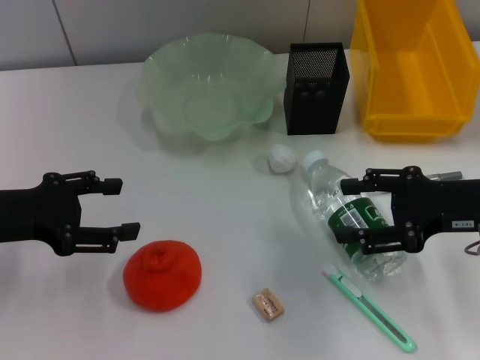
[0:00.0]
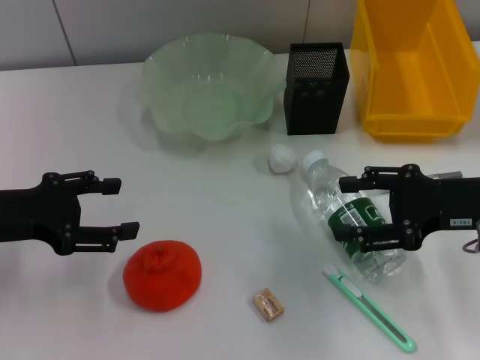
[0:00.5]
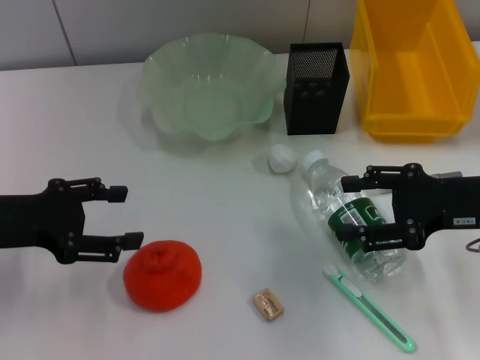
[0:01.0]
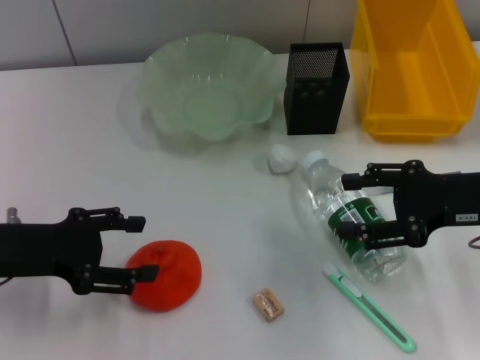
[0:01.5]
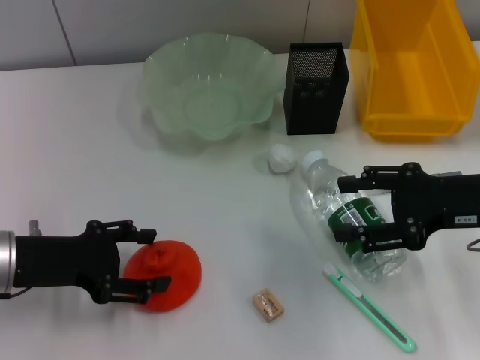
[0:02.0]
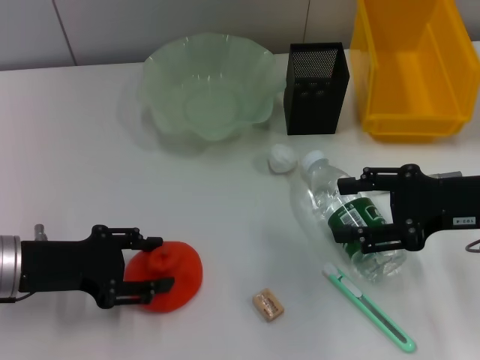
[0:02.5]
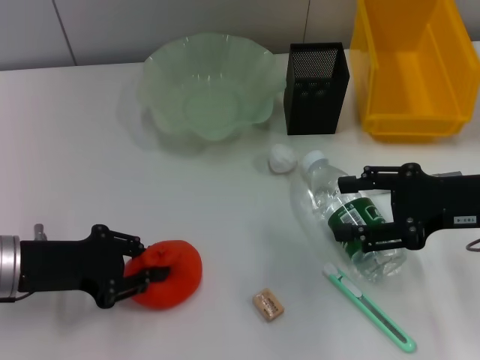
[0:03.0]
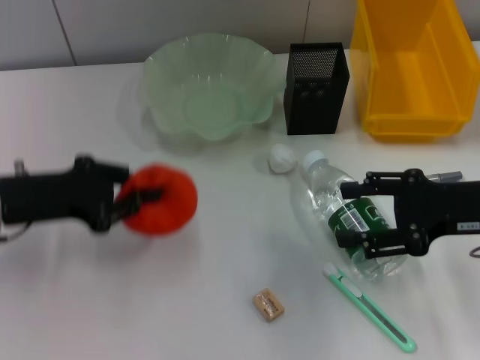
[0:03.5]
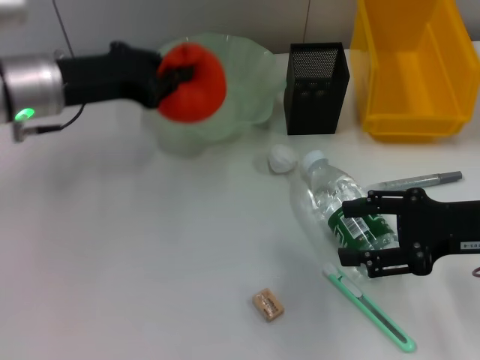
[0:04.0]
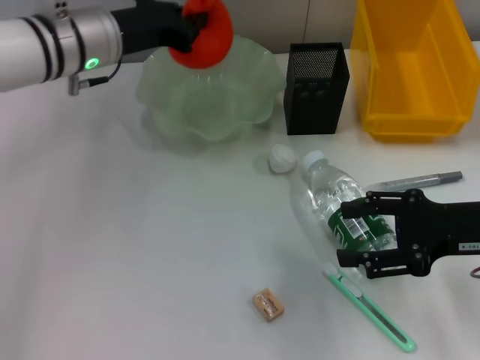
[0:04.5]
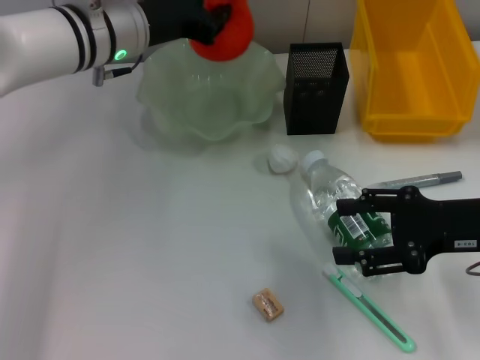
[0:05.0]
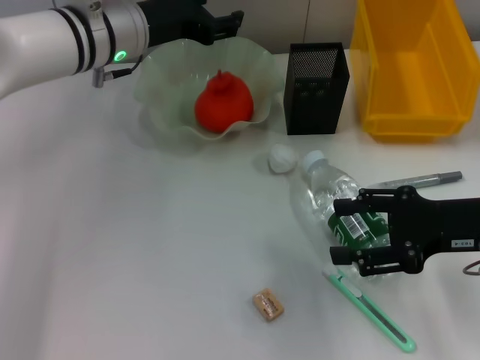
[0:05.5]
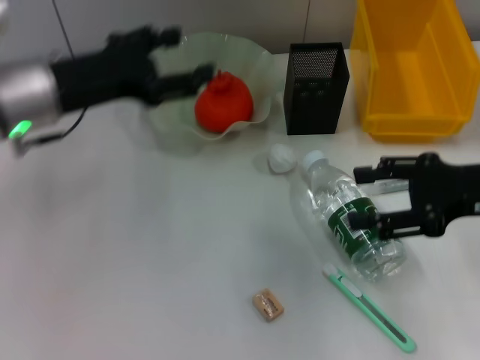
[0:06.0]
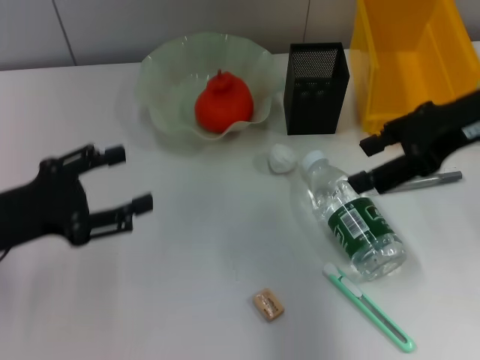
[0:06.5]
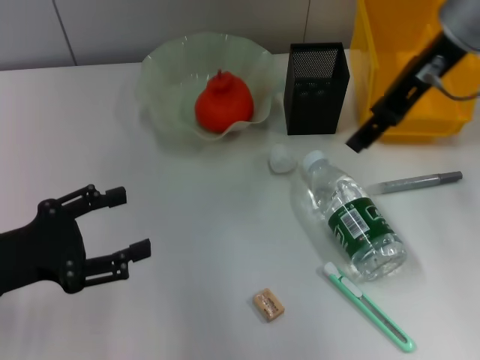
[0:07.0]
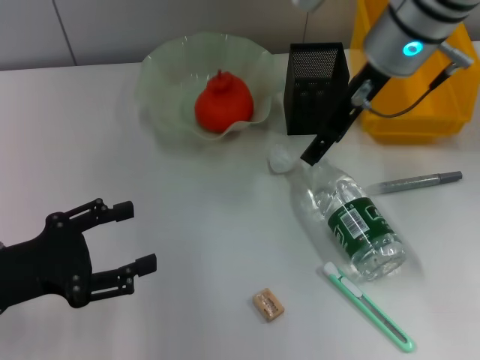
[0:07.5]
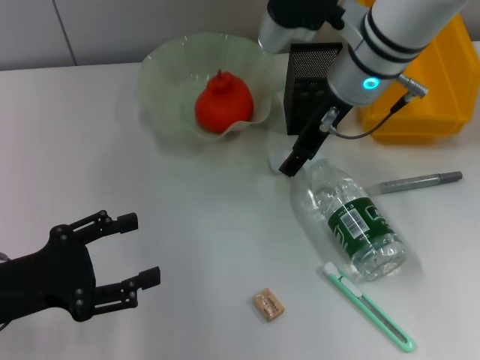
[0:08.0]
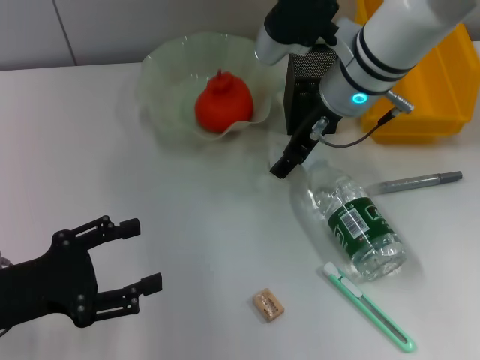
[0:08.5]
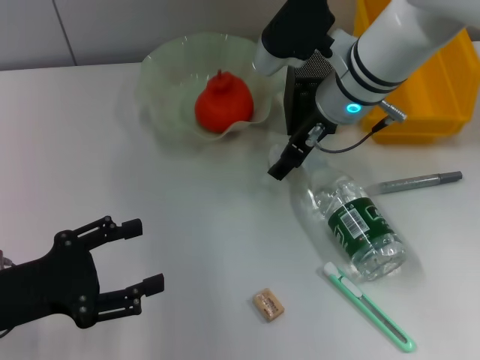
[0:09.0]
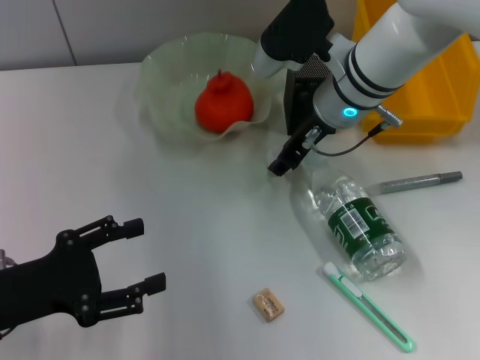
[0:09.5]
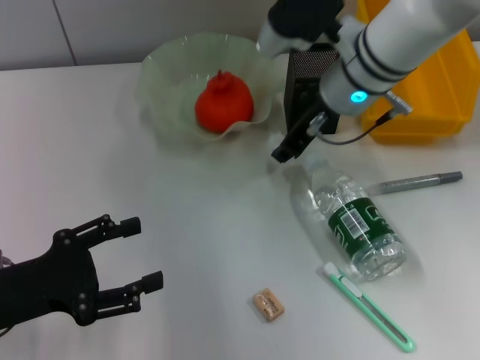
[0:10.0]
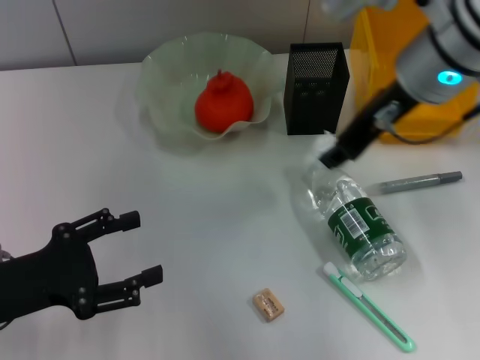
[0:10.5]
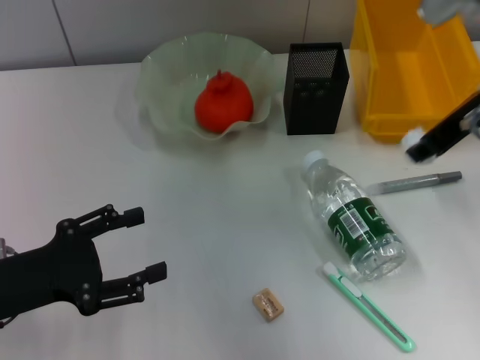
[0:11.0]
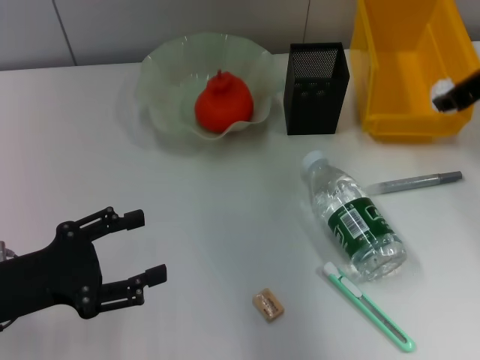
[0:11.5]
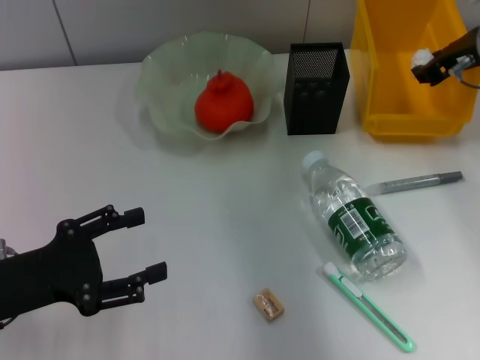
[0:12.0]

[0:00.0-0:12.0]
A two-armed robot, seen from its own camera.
Step, 0:00.0 to 0:03.0: Grab the orange with the left hand.
Step, 0:03.5 to 0:05.0: Place the orange into the fruit bowl with the left hand.
Step, 0:05.5 to 0:09.5: Grab the paper ball with the right hand.
0:00.0 to 0:02.0: The left gripper ends up roughly 5 cm from where it was.
0:02.0 to 0:04.0: The left gripper travels forward, upward and to the right by approximately 15 cm, and closes.
0:04.0 to 0:06.0: The left gripper reaches some 10 cm to the right, then returns, and opens.
0:06.0 to 0:08.0: The right gripper travels to the left and forward by approximately 20 cm, while the left gripper is displaced backward, to the left and downward by approximately 20 cm.
0:08.0 to 0:10.0: The right gripper closes its fingers.
0:10.0 to 0:12.0: The right gripper shifts some 15 cm to the right.

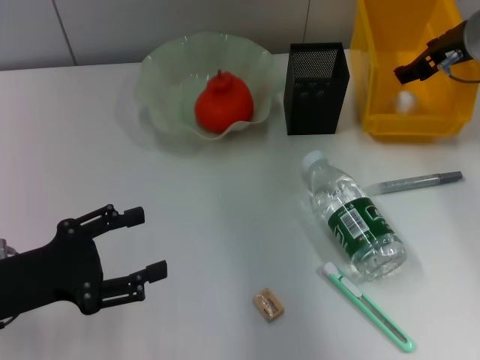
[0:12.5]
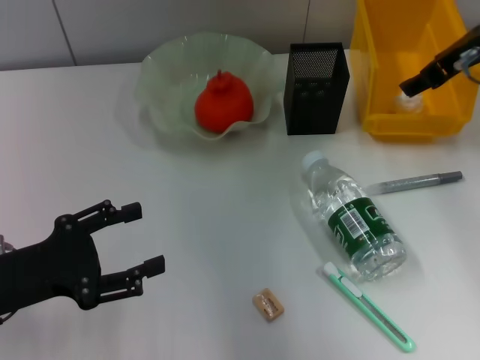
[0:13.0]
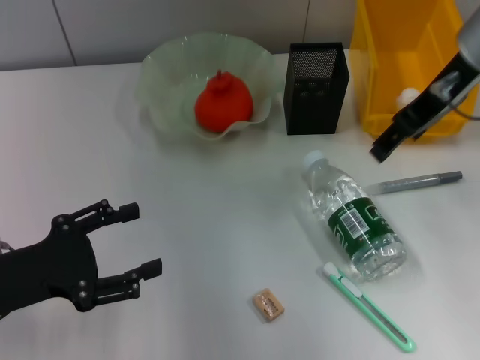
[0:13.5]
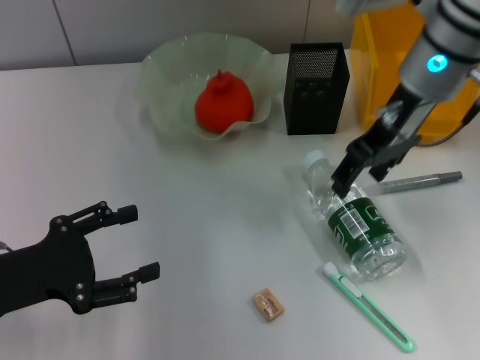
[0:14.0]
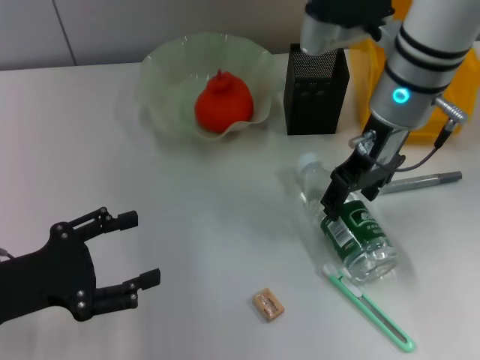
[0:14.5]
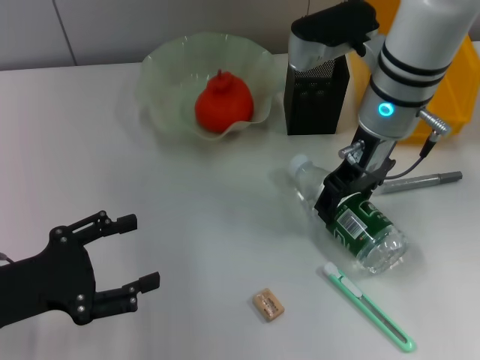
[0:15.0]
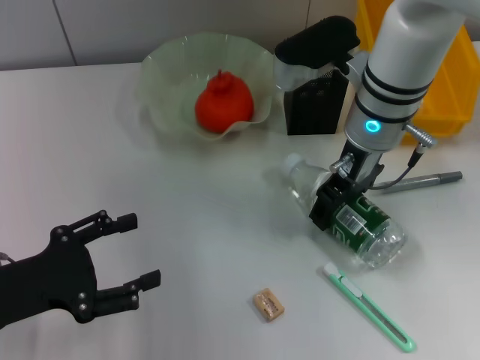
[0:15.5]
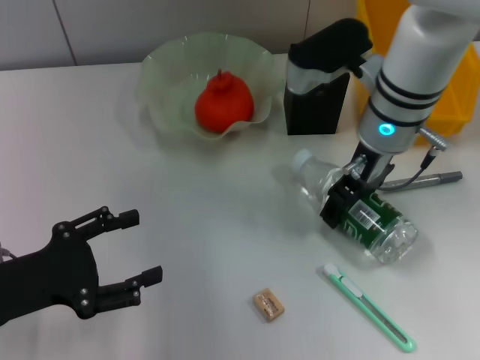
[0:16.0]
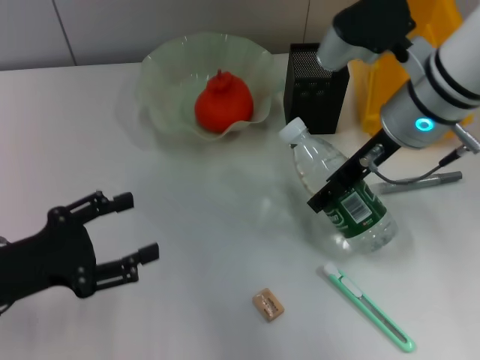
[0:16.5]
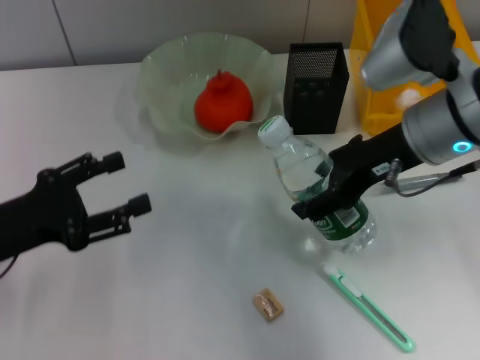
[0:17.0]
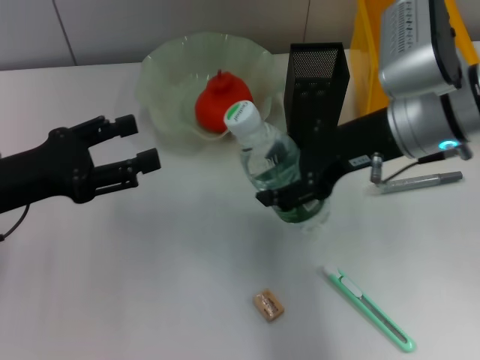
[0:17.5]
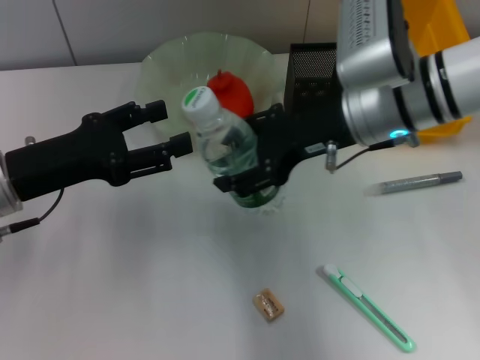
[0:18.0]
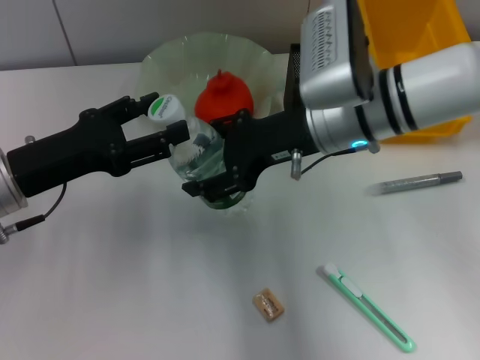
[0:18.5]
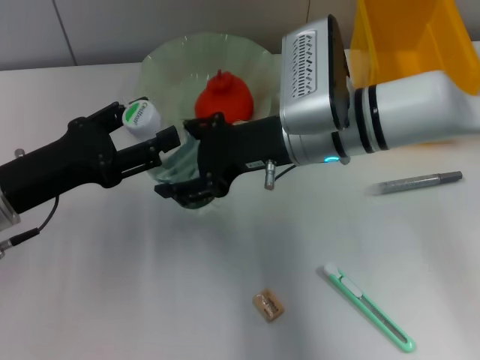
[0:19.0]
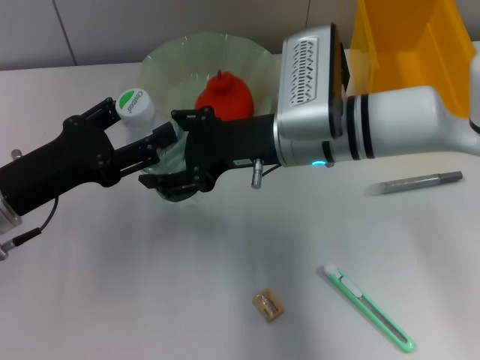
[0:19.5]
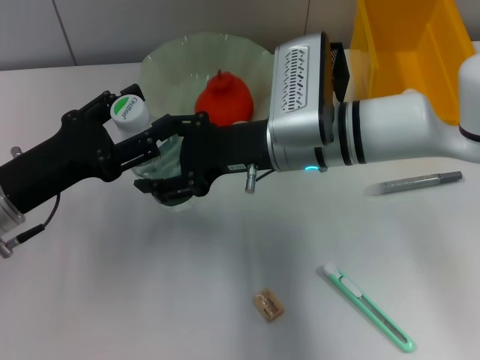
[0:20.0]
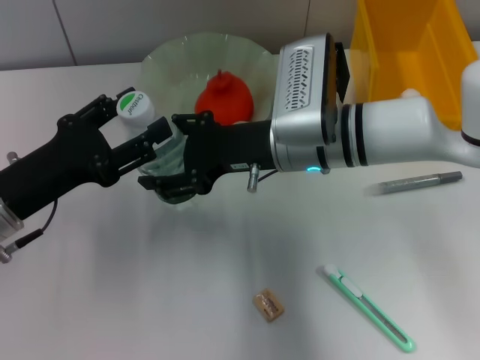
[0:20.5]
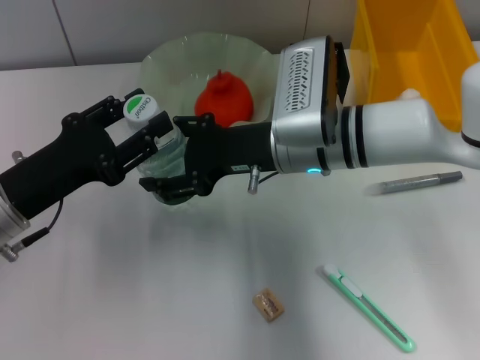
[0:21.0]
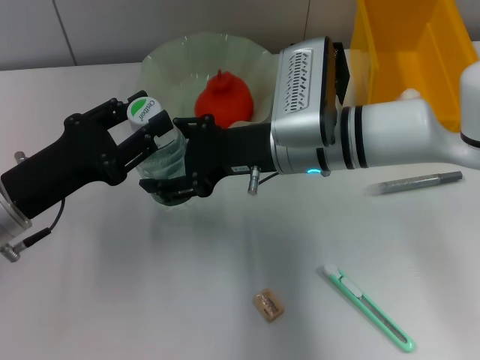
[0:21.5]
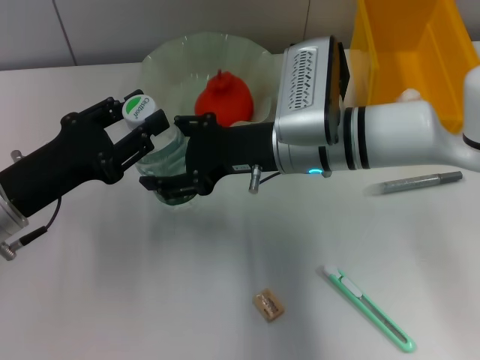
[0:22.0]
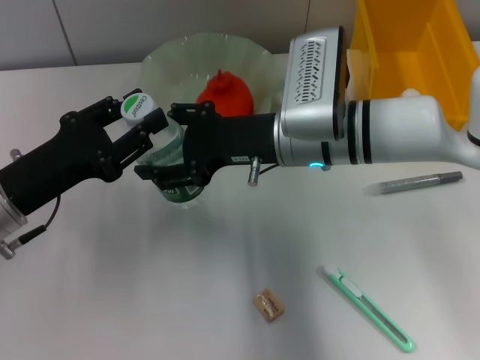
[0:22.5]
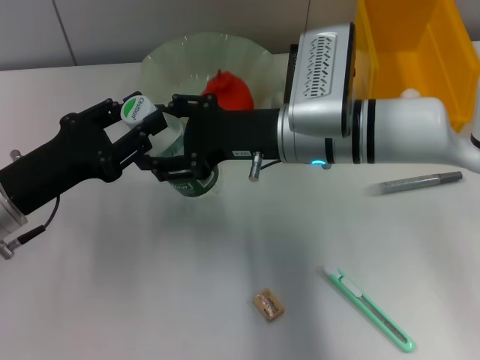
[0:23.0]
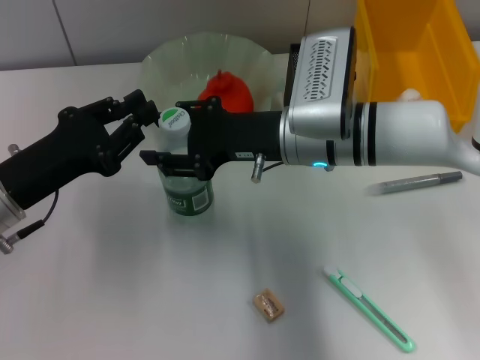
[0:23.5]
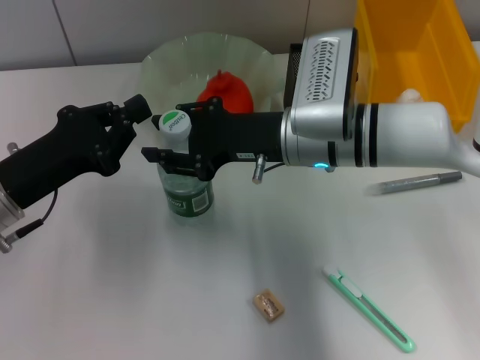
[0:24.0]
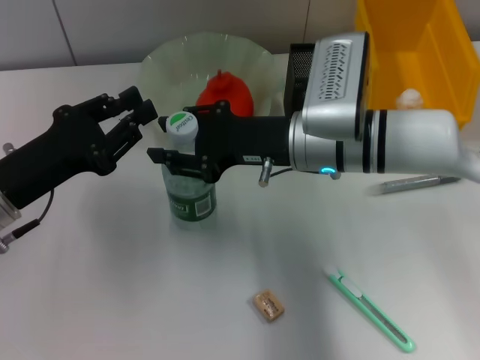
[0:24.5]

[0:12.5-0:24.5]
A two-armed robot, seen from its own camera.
Step, 0:13.0 to 0:15.5: Grab the water bottle with the right hand.
Step, 0:16.0 to 0:23.0: Pass the water bottle from the right hand to the left hand.
0:12.5 to 0:14.5: The right gripper goes about 10 cm to the left.
0:16.5 to 0:18.5: The right gripper shifts by approximately 5 cm; the left gripper travels forward by roughly 5 cm.
0:20.5 to 0:22.5: The left gripper closes up.
0:22.5 to 0:24.5: The right gripper closes, while the left gripper closes.

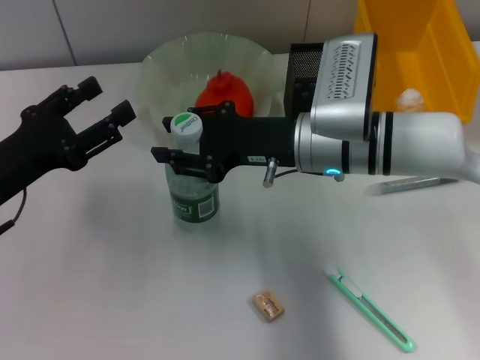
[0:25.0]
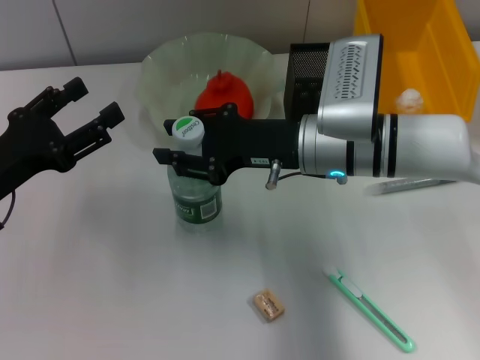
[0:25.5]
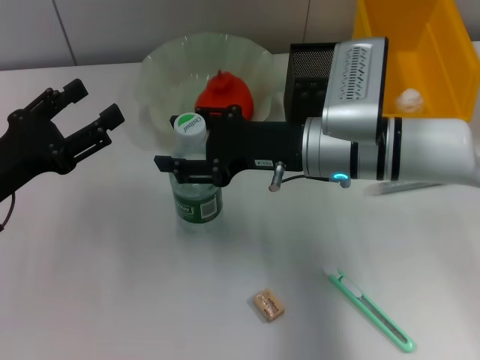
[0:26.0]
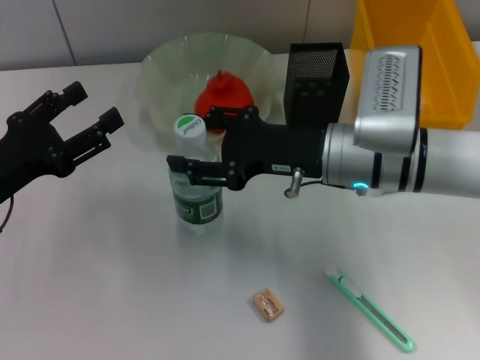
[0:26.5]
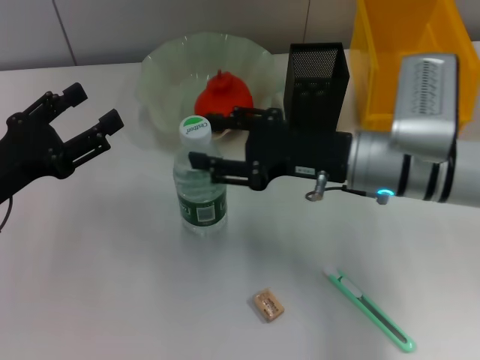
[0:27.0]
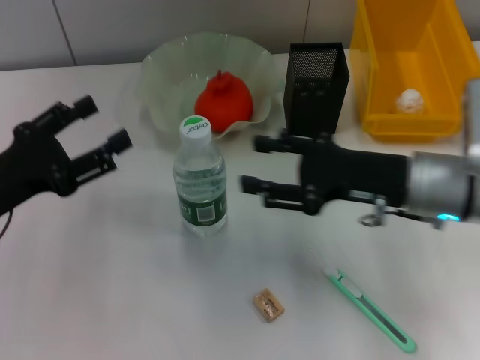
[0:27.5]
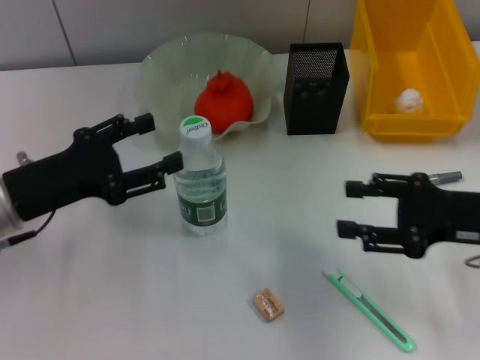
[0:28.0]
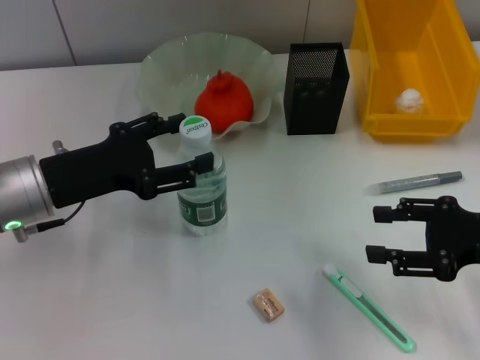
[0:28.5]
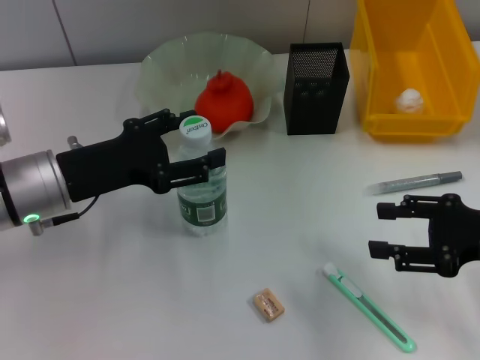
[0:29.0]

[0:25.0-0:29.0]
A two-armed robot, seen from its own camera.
0:25.0 to 0:27.0: The right gripper changes place by approximately 5 cm.
0:27.0 to 0:29.0: The left gripper heads to the right, covering roughly 5 cm, while the right gripper heads to the right and backward, covering about 20 cm.
